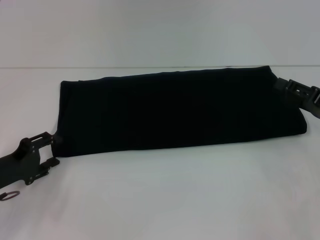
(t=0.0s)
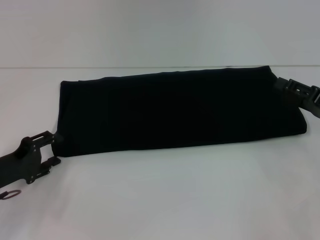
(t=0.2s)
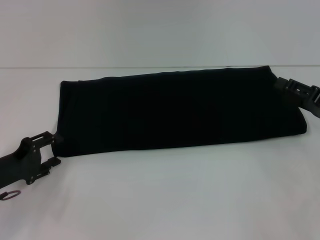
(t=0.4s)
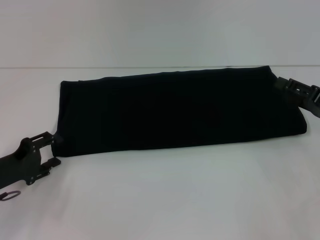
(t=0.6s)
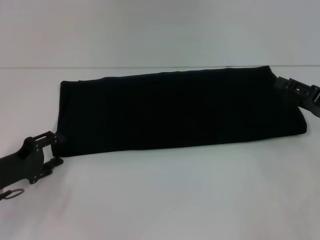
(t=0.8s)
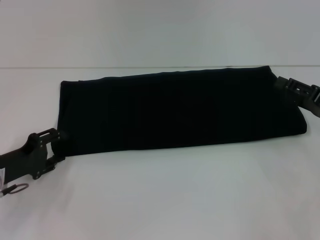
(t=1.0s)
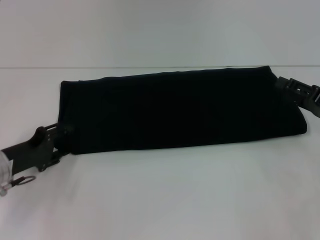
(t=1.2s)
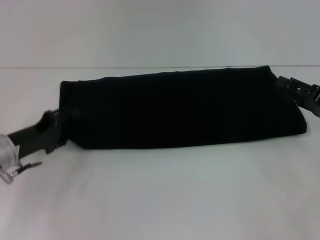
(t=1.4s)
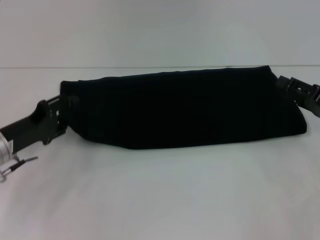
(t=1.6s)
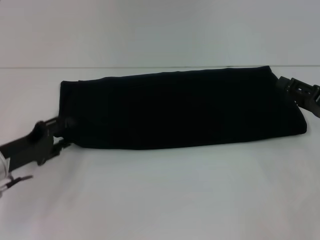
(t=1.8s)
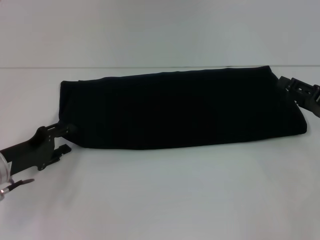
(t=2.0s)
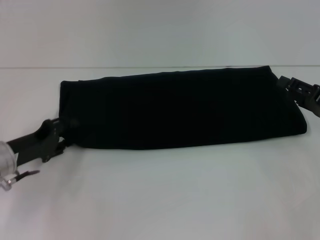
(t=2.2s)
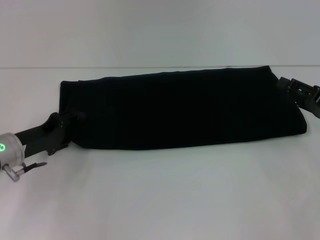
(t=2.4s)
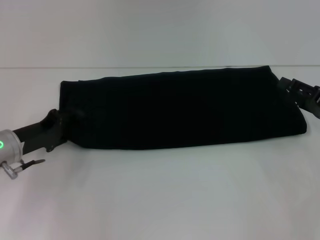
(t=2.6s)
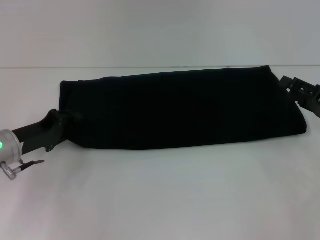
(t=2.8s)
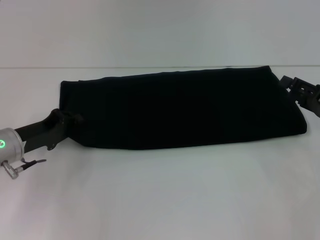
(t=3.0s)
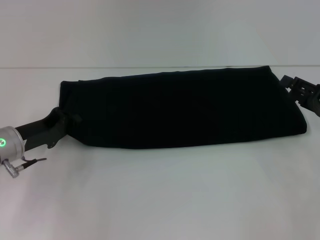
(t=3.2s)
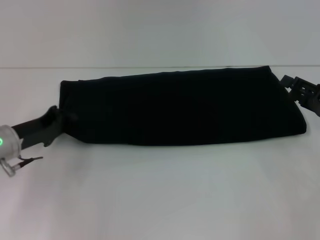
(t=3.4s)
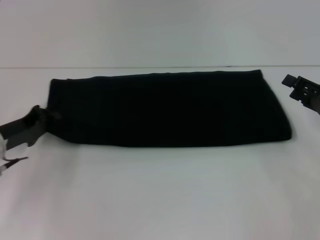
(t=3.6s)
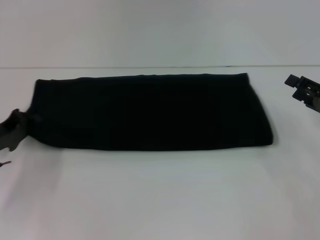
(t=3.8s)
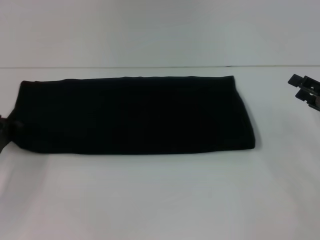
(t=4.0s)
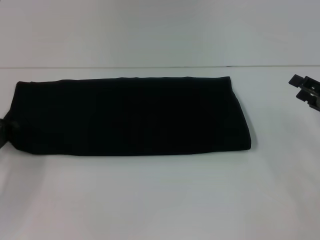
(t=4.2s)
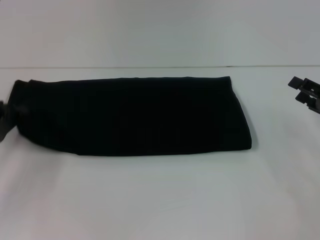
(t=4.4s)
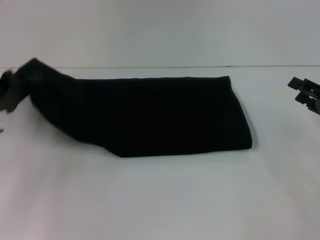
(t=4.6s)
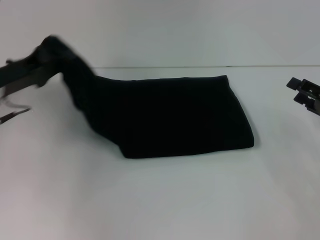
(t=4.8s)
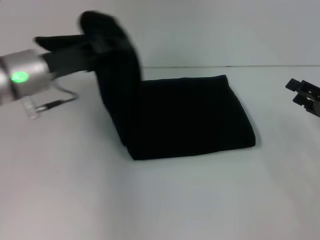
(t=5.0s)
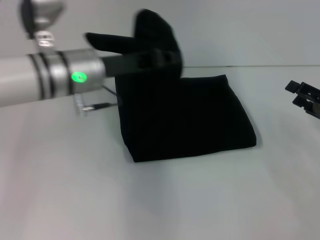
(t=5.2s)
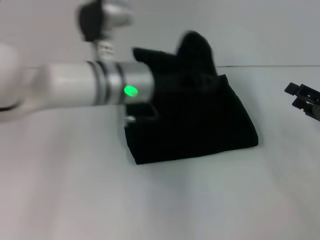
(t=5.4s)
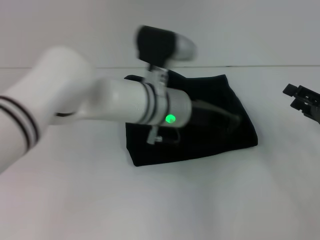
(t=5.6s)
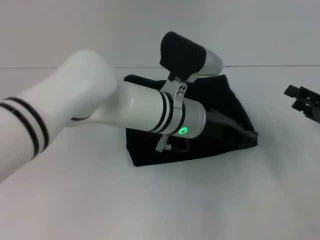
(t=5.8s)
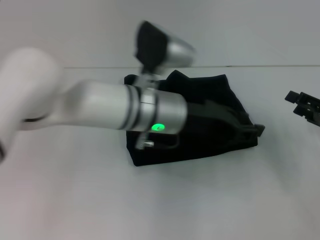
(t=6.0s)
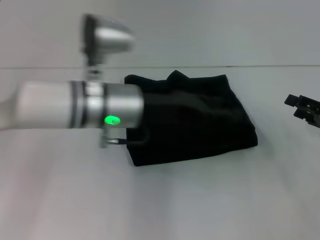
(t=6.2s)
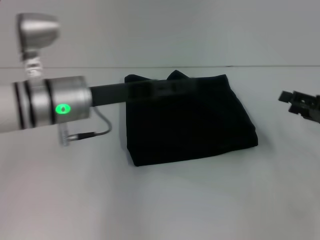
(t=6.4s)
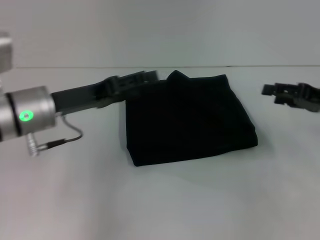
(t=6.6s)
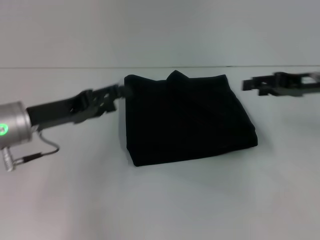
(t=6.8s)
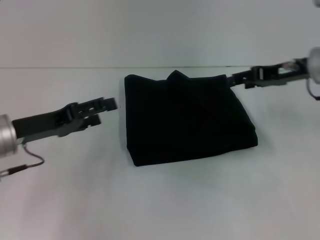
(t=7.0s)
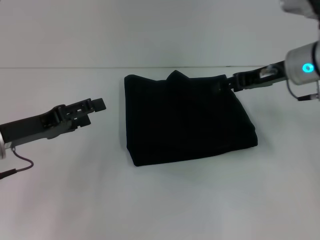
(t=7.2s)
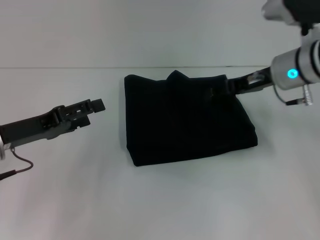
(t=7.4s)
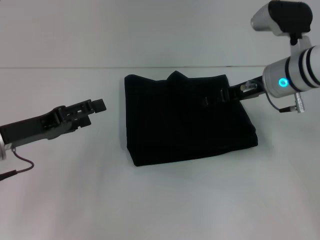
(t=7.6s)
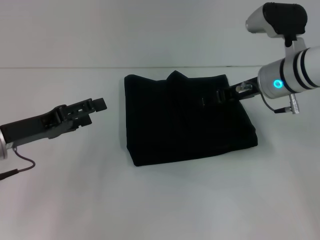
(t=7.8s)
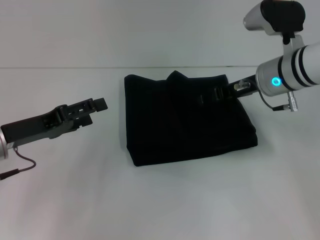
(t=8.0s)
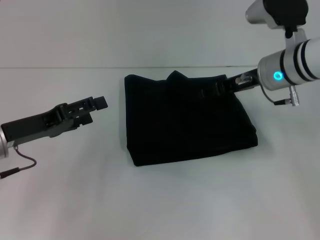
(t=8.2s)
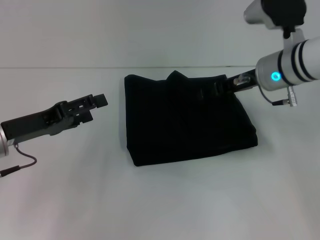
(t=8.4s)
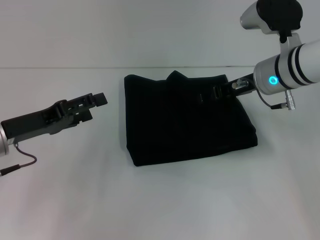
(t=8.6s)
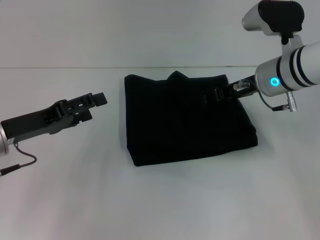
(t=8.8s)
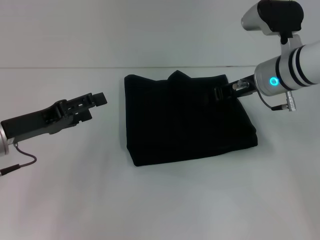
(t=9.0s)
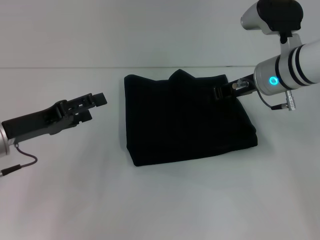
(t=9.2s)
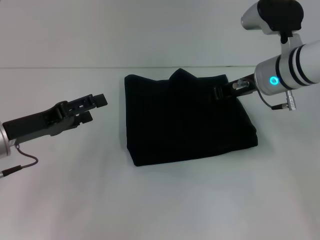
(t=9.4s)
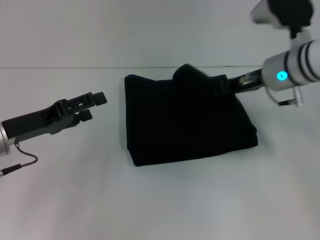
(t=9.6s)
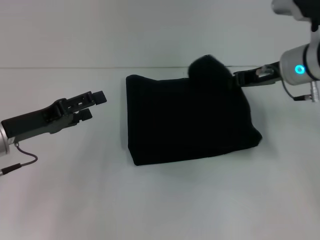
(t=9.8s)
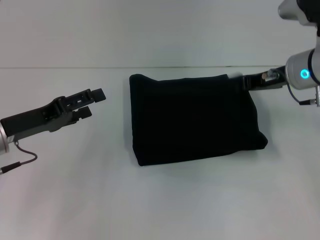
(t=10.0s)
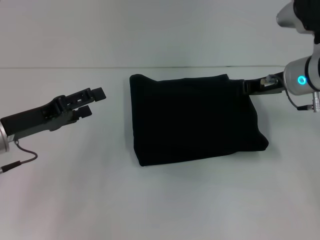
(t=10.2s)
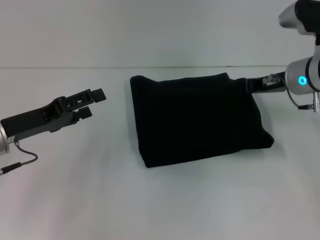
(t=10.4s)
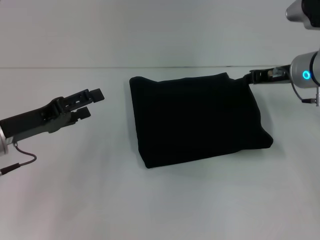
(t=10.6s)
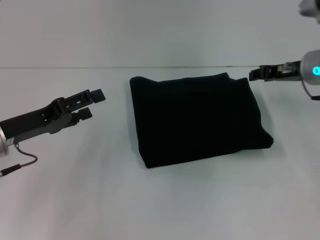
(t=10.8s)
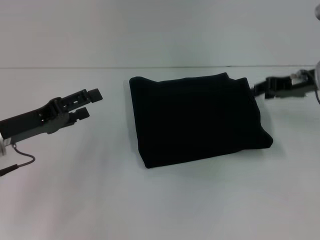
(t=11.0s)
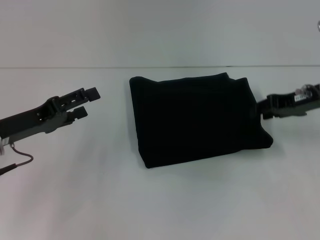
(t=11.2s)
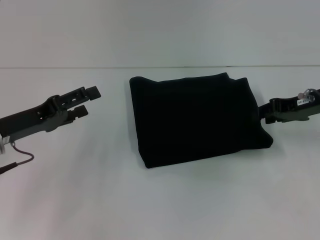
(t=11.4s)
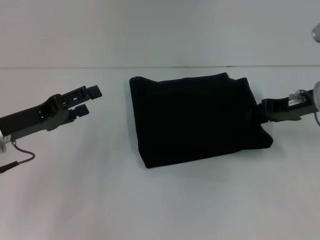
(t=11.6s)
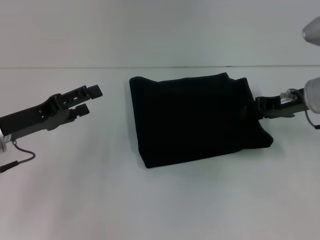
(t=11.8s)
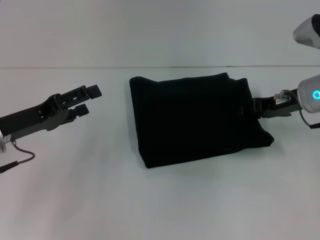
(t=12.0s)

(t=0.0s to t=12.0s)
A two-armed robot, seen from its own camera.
Step, t=0.0s - t=5.8s: Fold the clothes with your left hand.
t=0.0s - t=1.6s: The left gripper ends up some 5 cm from where it was.
t=1.6s - t=3.0s: There are only small adjustments of the grippers.
t=3.0s - t=4.4s: The left gripper shifts some 5 cm to the left, and closes its fingers.
t=4.4s - t=6.0s: The left gripper is displaced to the right by roughly 30 cm.
t=6.0s - t=7.6s: The left gripper shifts about 25 cm to the left, and opens up; the right gripper travels to the left, forward and upward by roughly 20 cm.
t=7.6s - t=9.0s: Neither gripper changes place.
t=9.0s - t=10.4s: The right gripper closes its fingers.
t=10.4s - t=12.0s: The right gripper opens up.

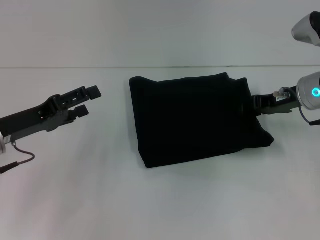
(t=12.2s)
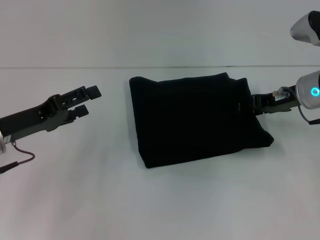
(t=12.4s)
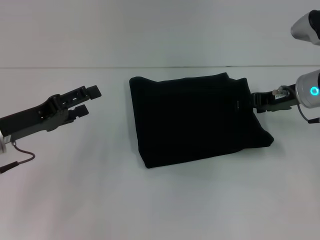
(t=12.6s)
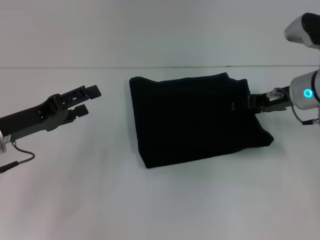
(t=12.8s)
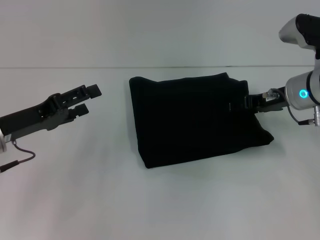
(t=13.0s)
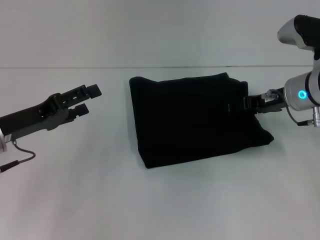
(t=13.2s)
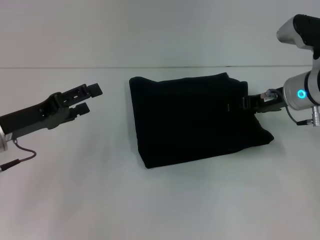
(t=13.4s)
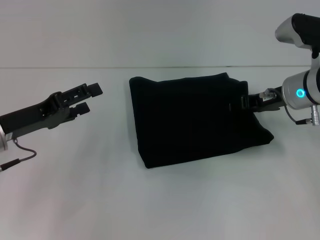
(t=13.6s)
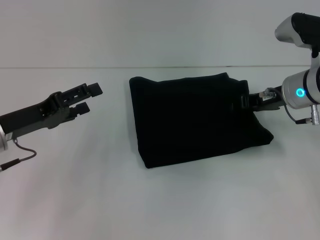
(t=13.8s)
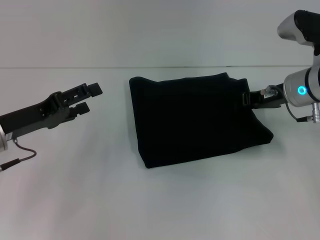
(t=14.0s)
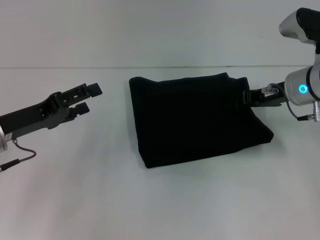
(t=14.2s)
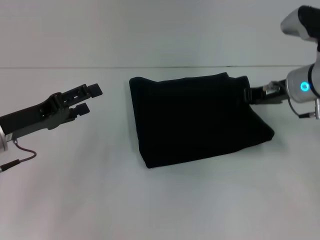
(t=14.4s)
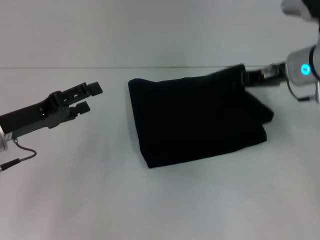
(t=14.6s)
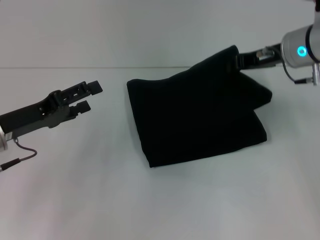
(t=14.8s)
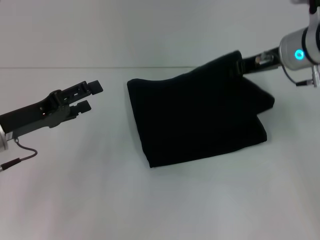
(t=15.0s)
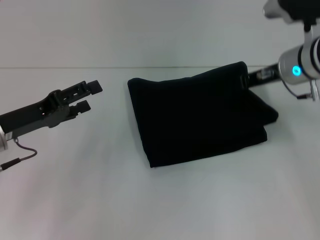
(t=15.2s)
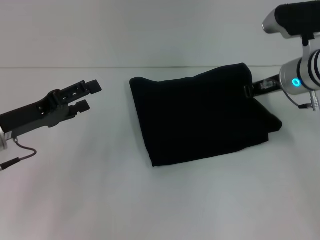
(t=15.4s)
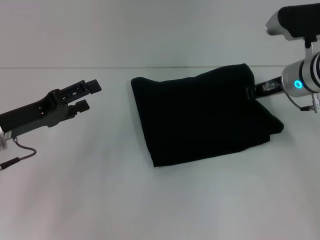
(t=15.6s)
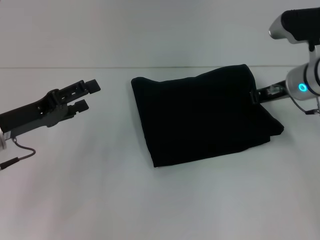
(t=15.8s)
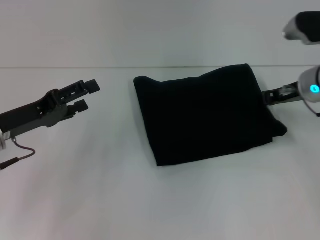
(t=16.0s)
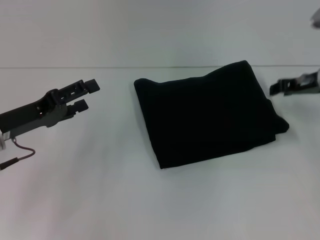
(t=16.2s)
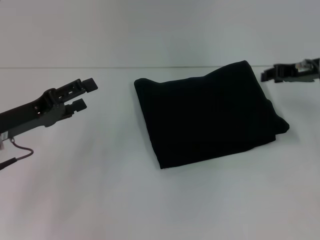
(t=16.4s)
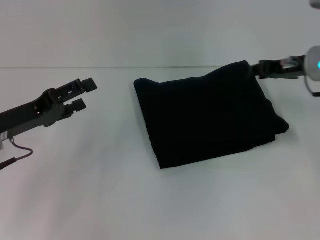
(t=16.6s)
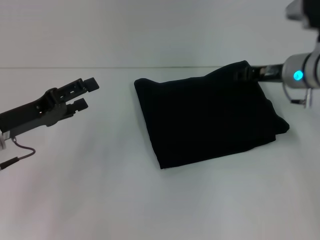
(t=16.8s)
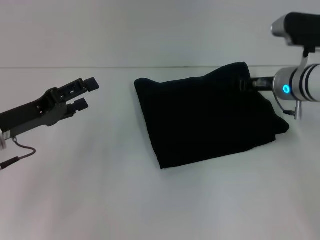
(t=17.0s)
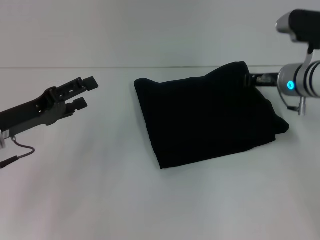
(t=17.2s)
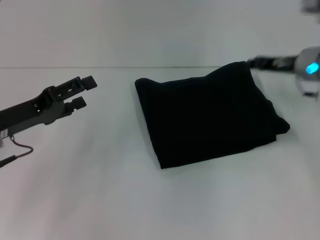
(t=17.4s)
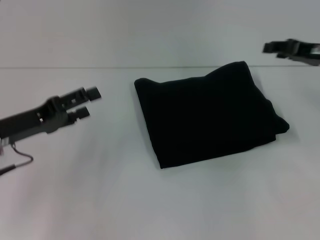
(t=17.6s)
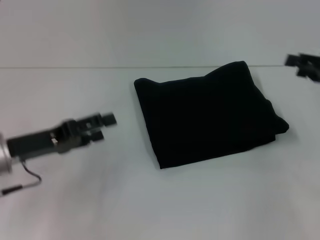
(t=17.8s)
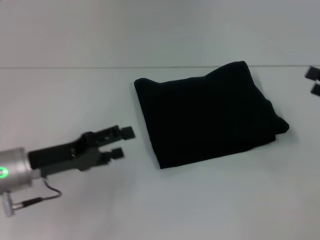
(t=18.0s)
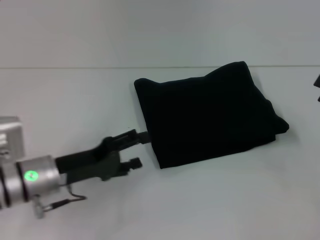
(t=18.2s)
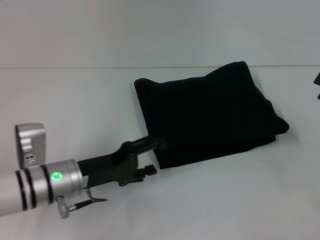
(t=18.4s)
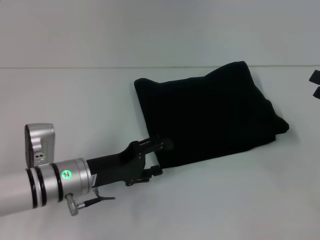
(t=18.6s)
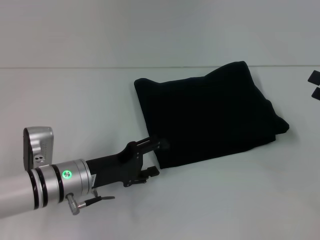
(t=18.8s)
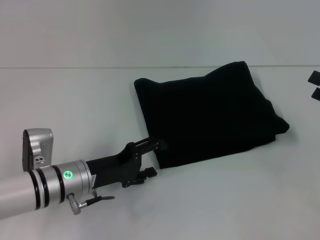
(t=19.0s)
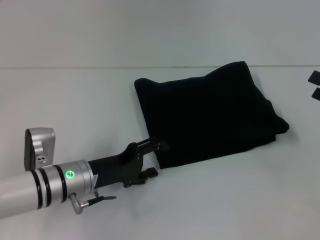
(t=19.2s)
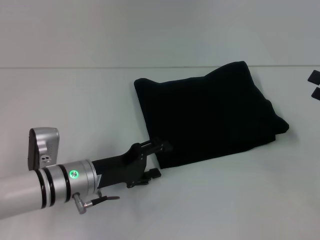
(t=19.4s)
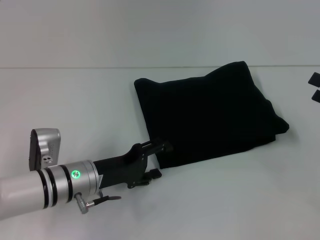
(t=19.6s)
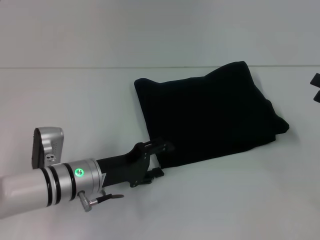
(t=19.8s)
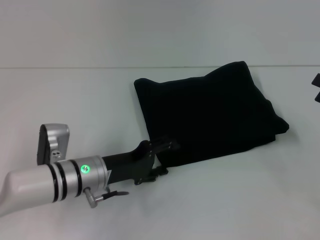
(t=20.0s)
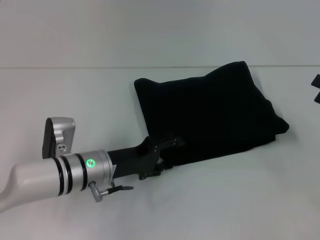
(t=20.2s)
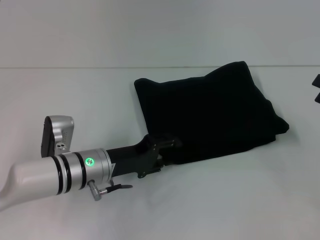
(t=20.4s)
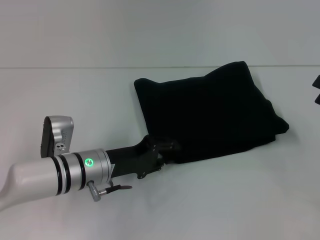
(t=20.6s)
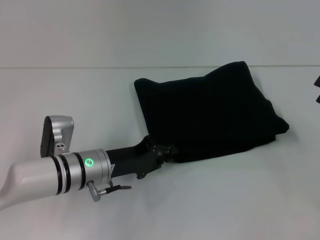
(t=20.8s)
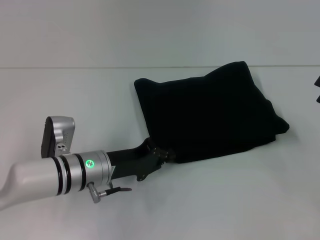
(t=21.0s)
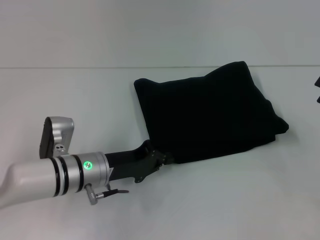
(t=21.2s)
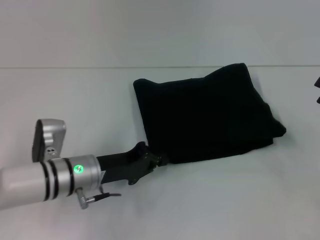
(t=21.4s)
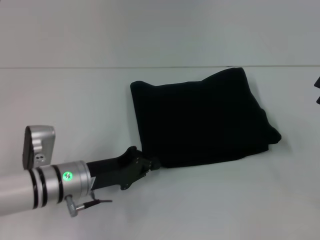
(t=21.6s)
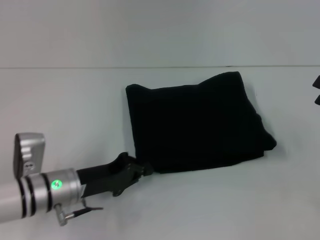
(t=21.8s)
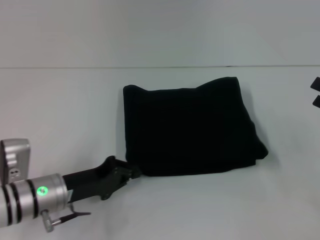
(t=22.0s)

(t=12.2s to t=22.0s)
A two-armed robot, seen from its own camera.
t=12.2s - t=13.6s: The grippers stay close to where they were, moving slightly.
t=13.6s - t=15.0s: The right gripper travels upward by about 5 cm, and closes.
t=15.0s - t=16.4s: The right gripper goes roughly 5 cm to the right, and opens its fingers.
t=16.4s - t=17.8s: The right gripper travels to the right and backward by about 10 cm.
t=17.8s - t=19.2s: The right gripper heads backward, covering some 5 cm, and opens its fingers, while the left gripper heads to the right and downward, covering some 10 cm.
t=19.2s - t=20.6s: The grippers make only small movements.
t=20.6s - t=22.0s: The left gripper shifts some 5 cm to the left, and closes up.
